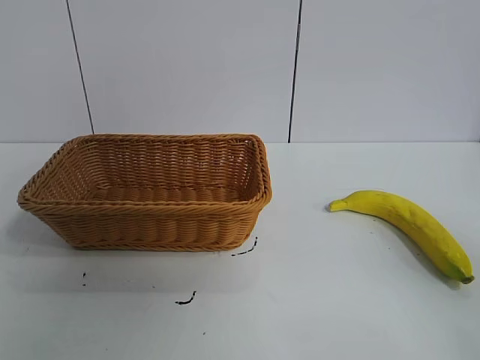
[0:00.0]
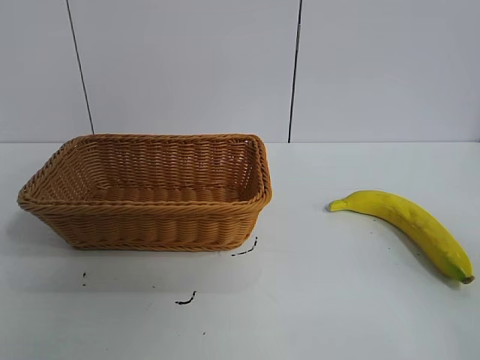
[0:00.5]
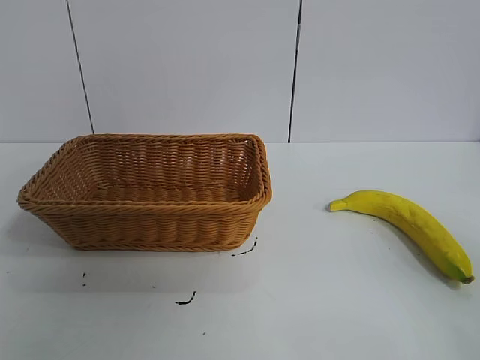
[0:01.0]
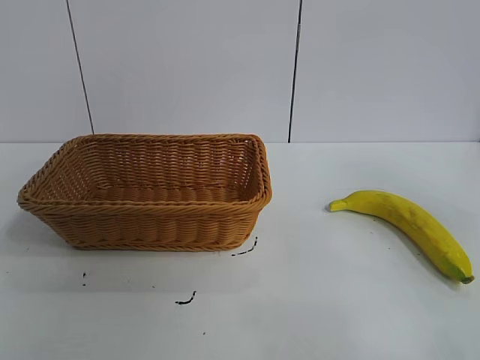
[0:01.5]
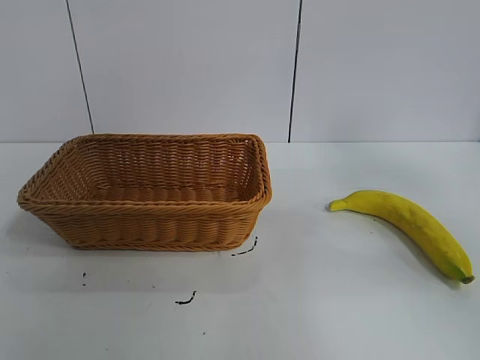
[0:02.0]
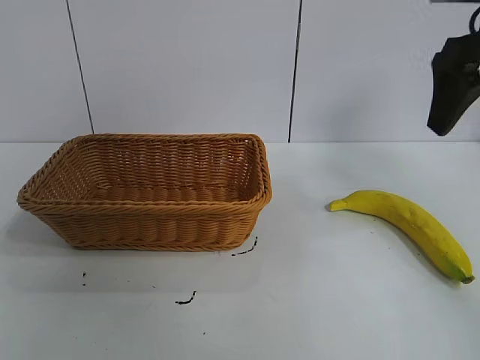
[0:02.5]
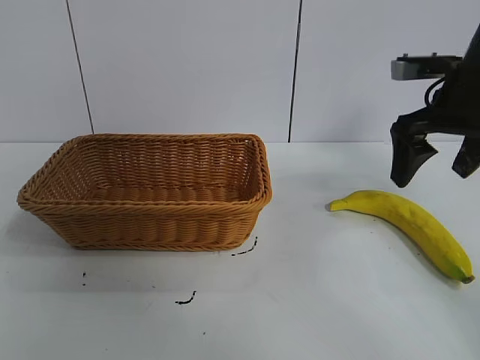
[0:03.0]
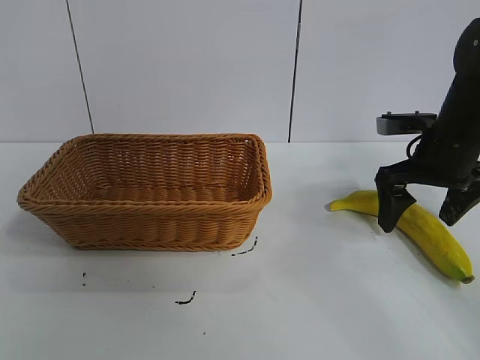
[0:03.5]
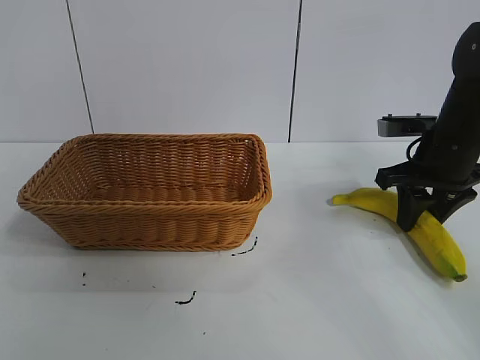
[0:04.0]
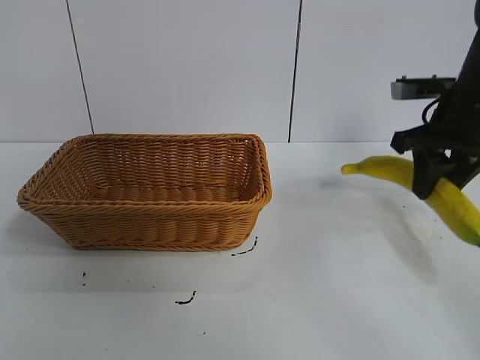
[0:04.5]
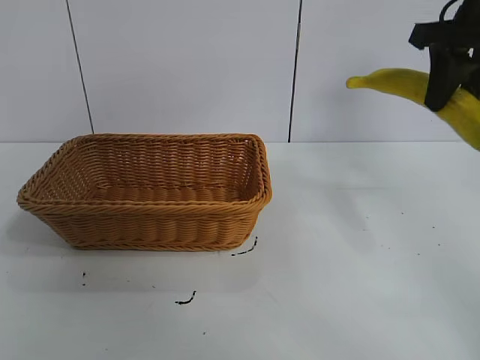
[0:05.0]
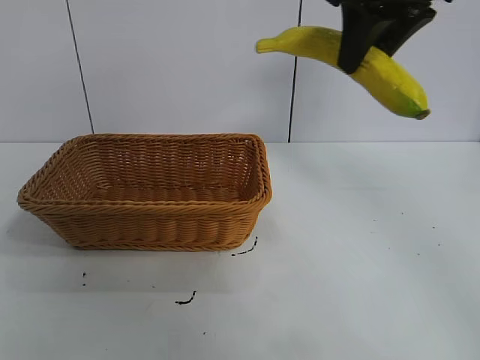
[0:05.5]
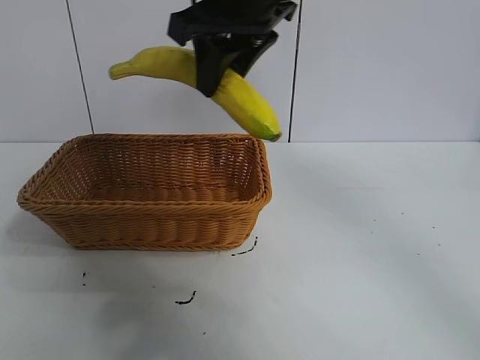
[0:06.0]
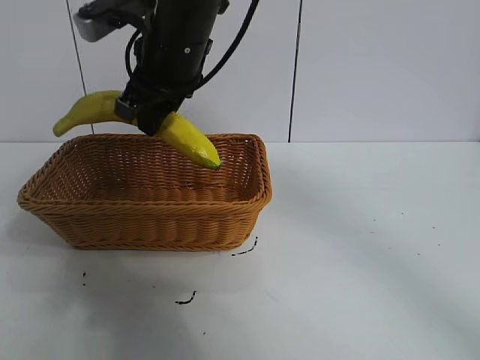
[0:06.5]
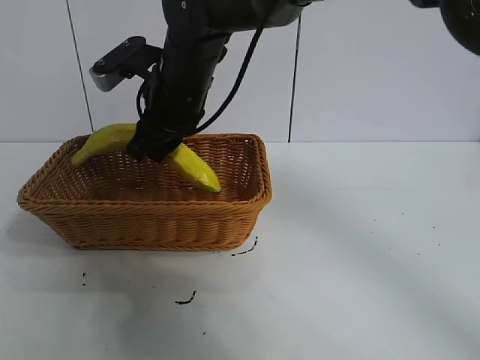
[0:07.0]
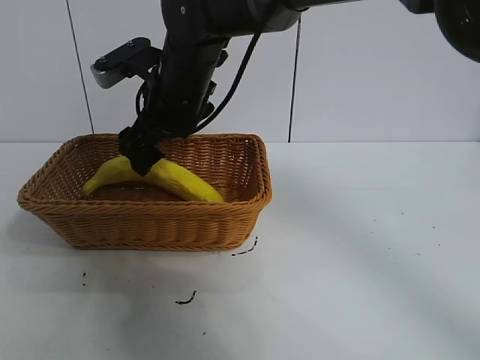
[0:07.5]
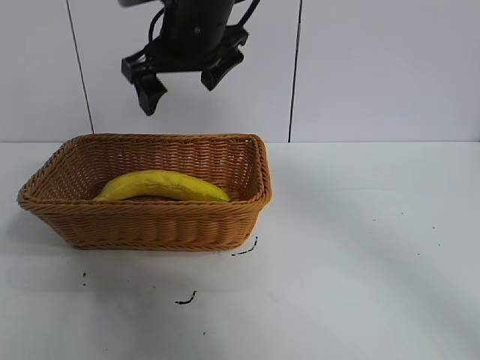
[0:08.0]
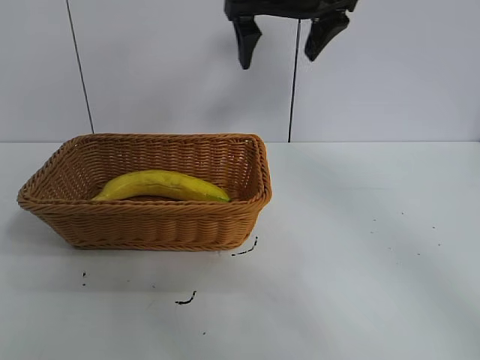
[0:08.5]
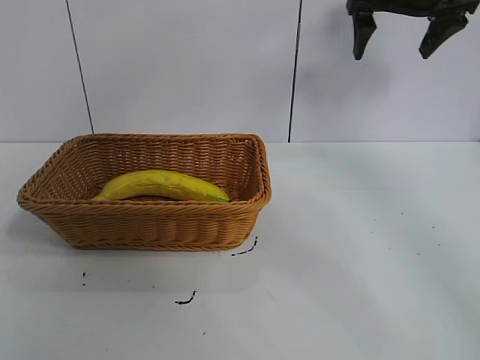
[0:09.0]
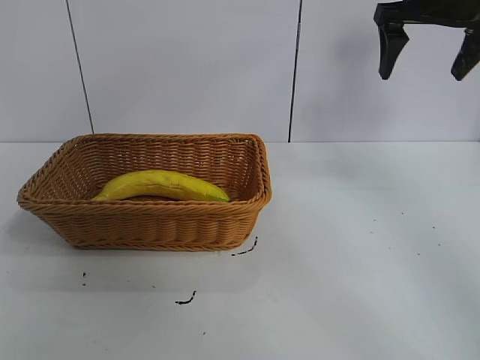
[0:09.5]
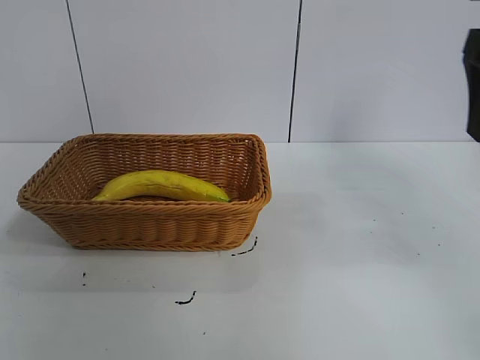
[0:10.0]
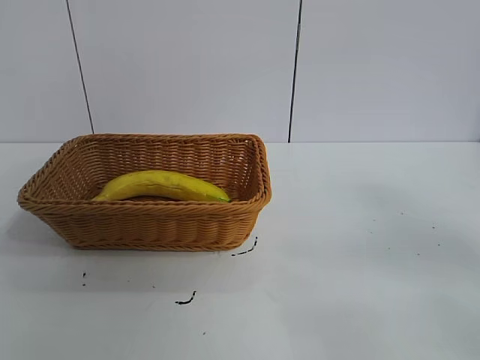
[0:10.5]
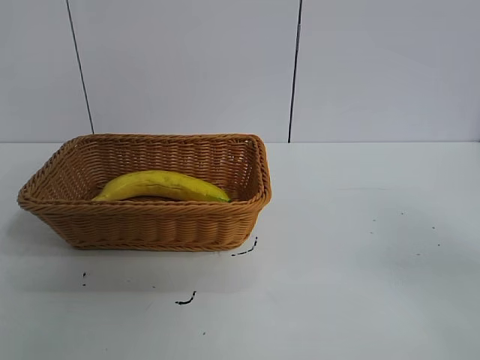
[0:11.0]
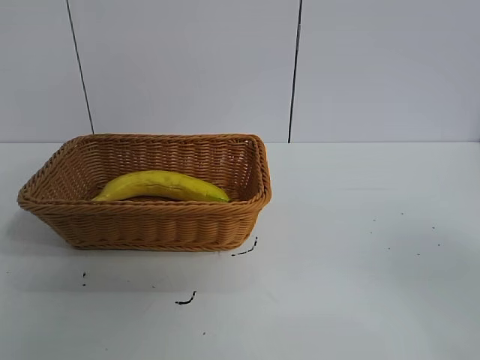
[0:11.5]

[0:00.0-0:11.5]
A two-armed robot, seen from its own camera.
Task of the whole recording: pick up the banana and put it into the basket.
Step, 0:01.5 to 0:04.0: Grasp the banana with right gripper.
Step, 0:04.5 to 0:07.5: Place the banana in the basket with right gripper.
